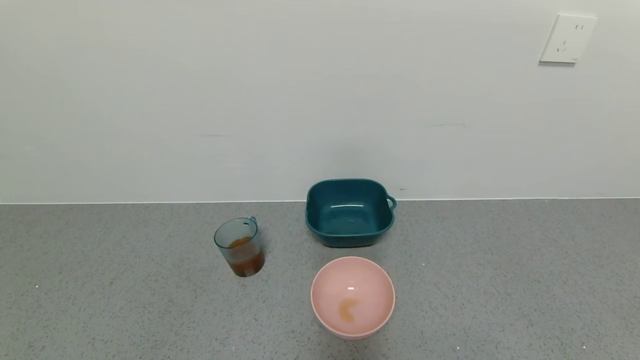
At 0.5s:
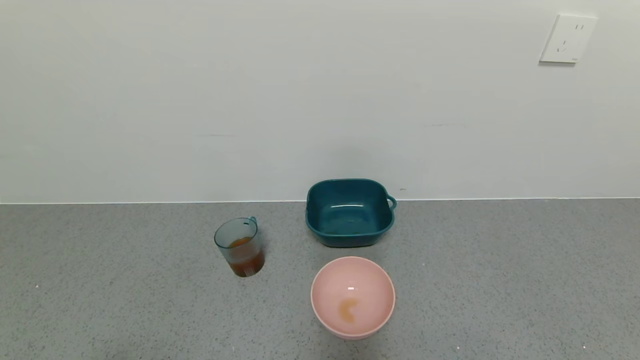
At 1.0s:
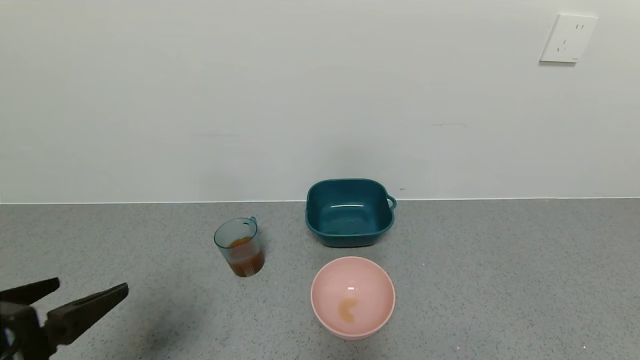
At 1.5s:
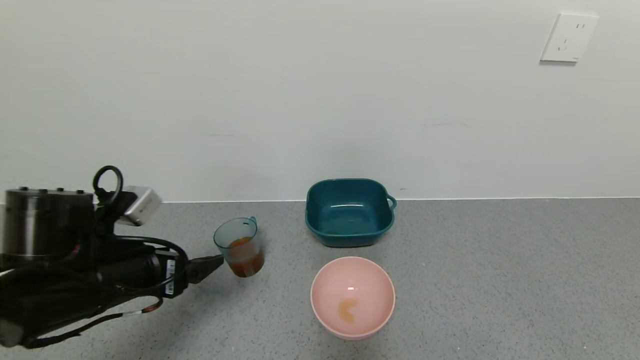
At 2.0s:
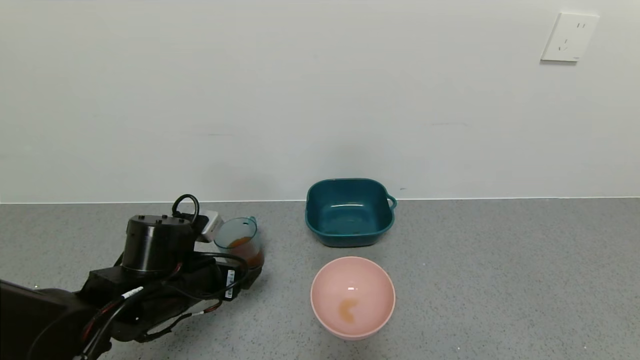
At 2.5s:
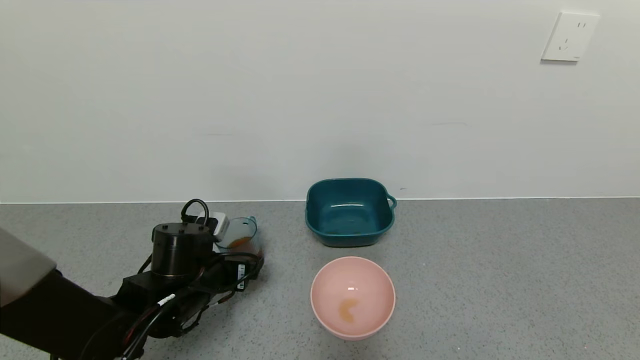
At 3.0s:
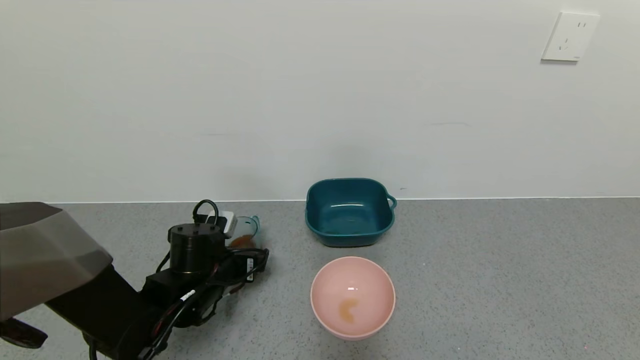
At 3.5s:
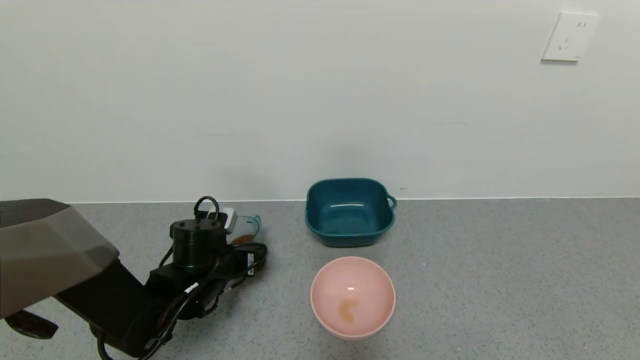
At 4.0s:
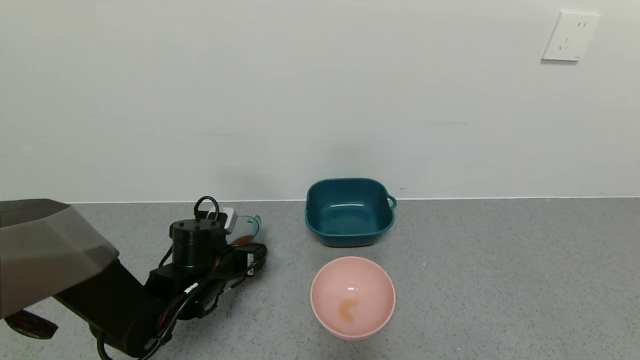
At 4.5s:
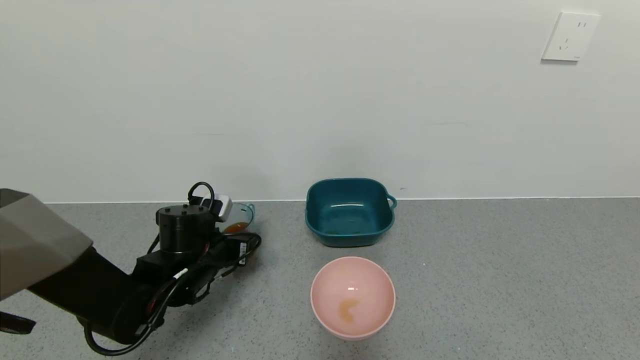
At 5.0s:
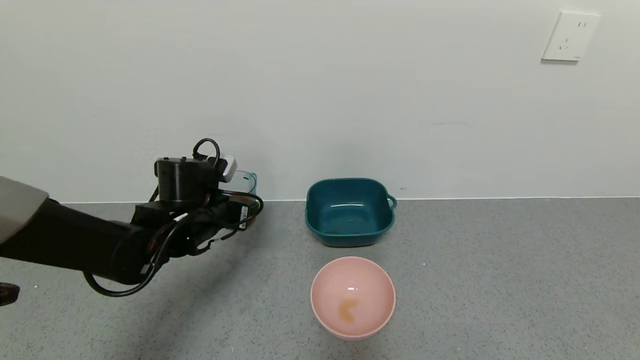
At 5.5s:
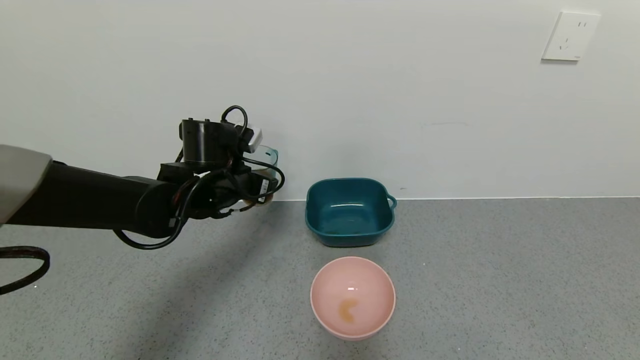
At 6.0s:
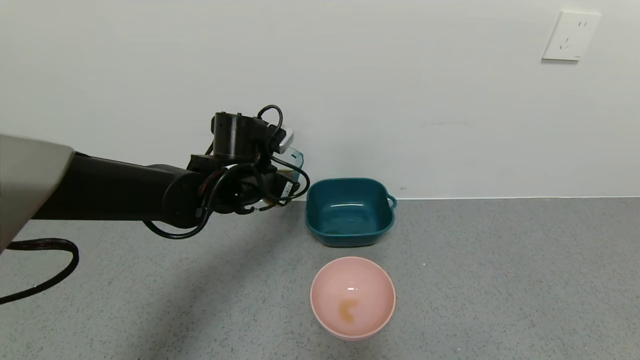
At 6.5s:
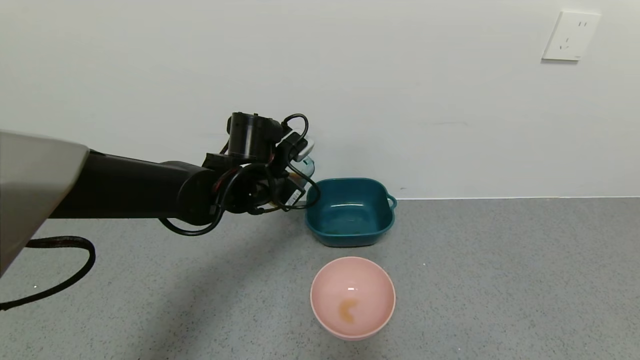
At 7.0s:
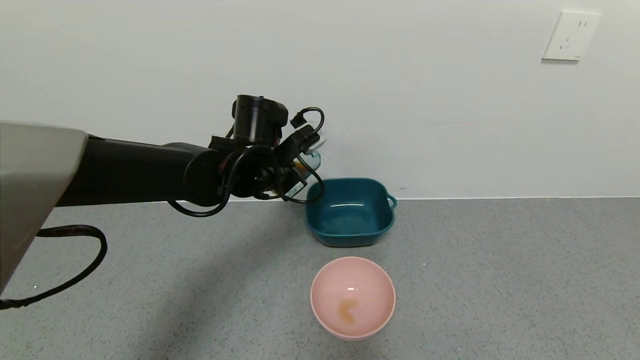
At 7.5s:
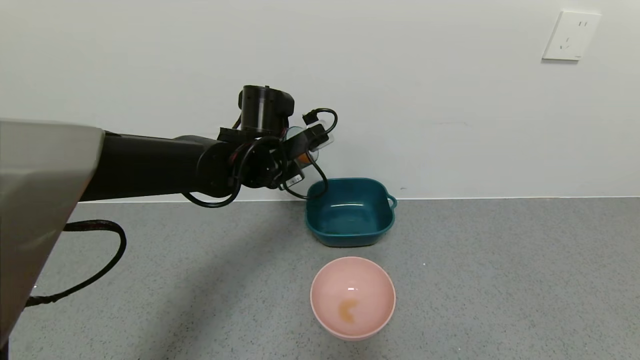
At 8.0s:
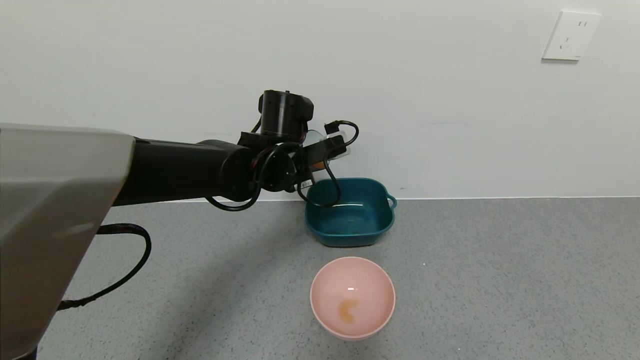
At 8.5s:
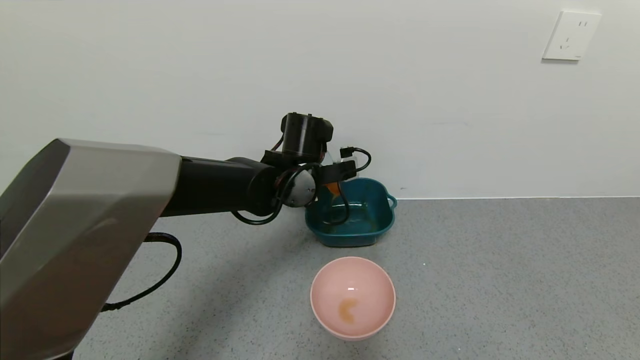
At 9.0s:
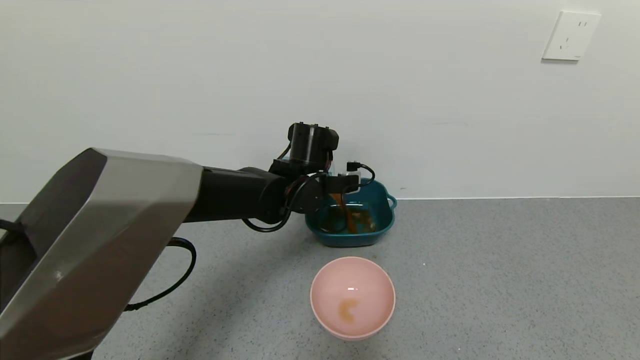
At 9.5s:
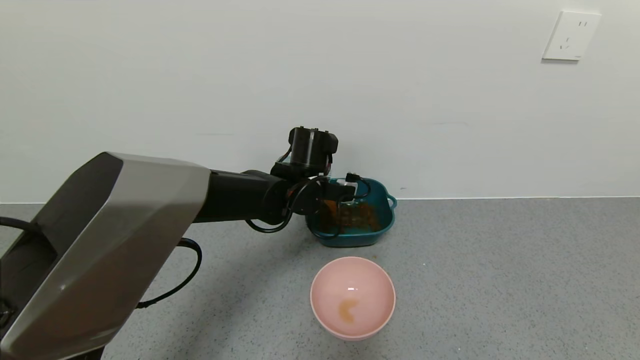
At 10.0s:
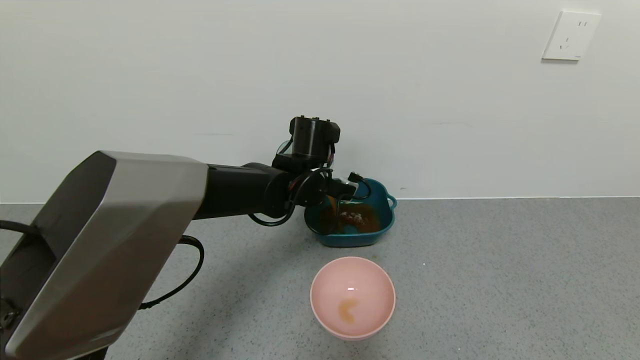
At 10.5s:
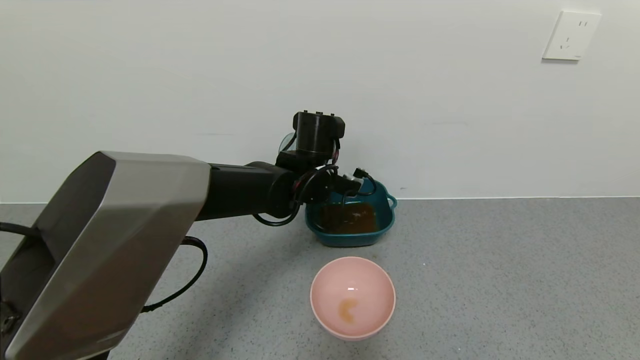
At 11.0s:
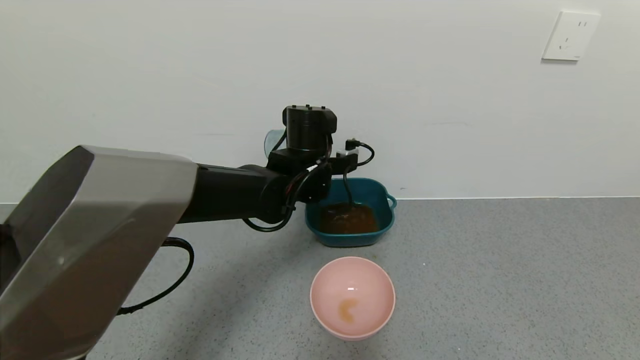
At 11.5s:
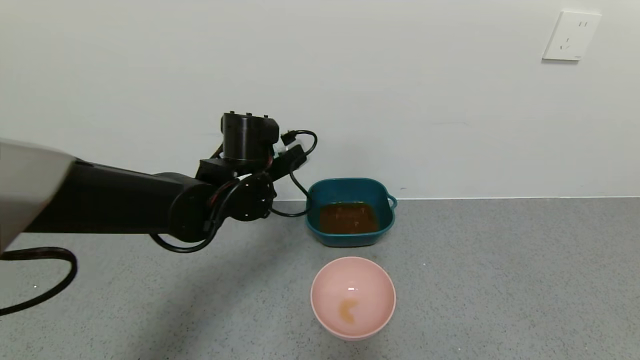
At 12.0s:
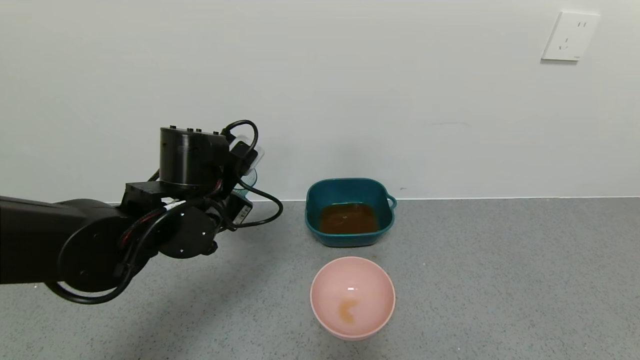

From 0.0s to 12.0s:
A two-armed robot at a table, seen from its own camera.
Task of the whole recording: use a gripper to pick up the cup and pour the liquid into a bowl or tray.
Step, from 0.0s to 4.5s: Grasp the glass of black tea with the left gripper.
Step, from 5.0s to 11.0s: Pour the black tea into the green bowl with the left gripper.
From 0.0s to 2.0s: The left gripper shifts approximately 30 cm forward.
From 2.0s to 4.0s: The left gripper is displaced forward by roughly 5 cm, and closes.
From 4.0s to 6.0s: The left gripper travels upward, to the right and forward by some 15 cm.
From 6.0s to 8.0s: The left gripper shifts approximately 5 cm to the right.
From 8.0s to 10.0s: The left gripper changes place by about 5 cm.
From 10.0s to 12.0s: The left gripper heads backward and to the left, covering about 15 cm.

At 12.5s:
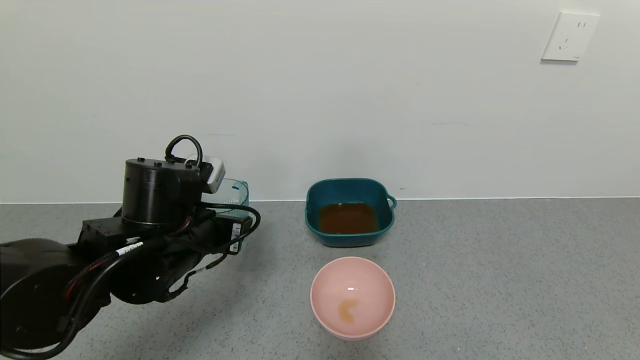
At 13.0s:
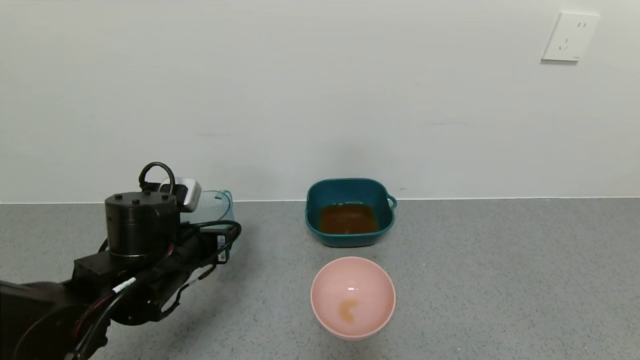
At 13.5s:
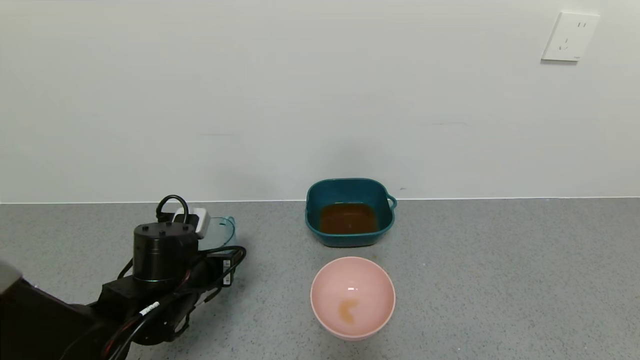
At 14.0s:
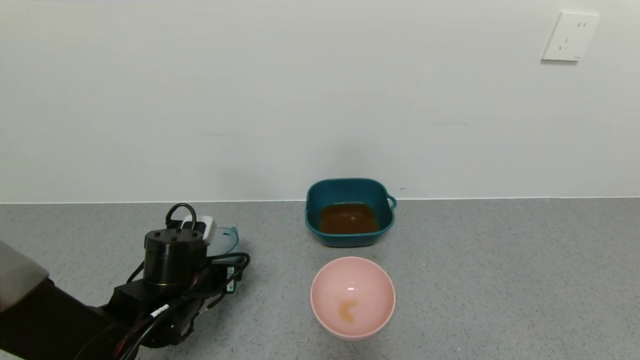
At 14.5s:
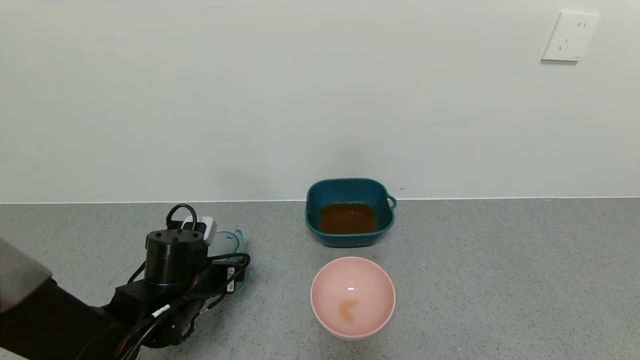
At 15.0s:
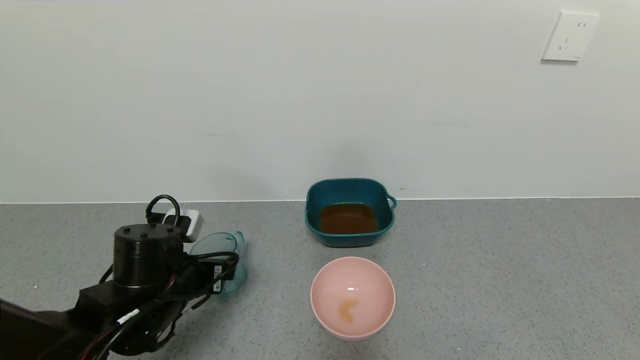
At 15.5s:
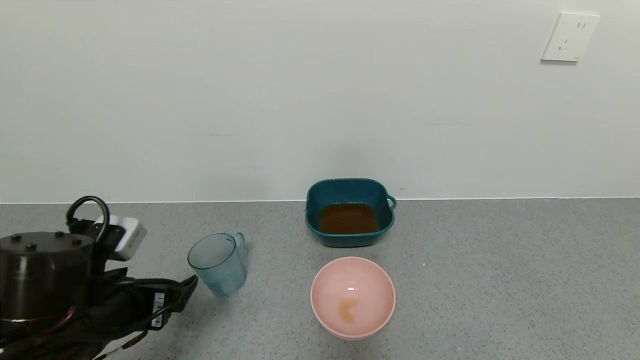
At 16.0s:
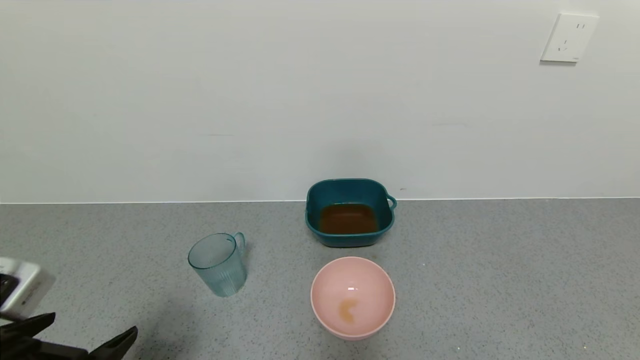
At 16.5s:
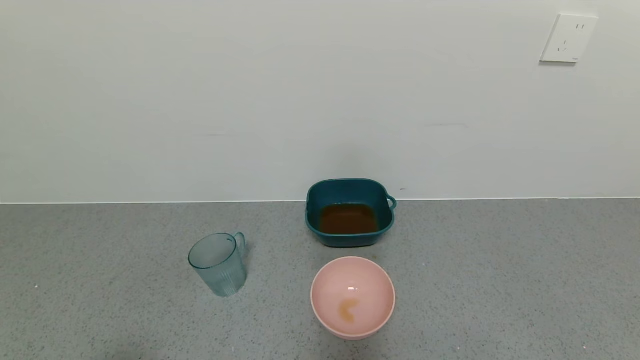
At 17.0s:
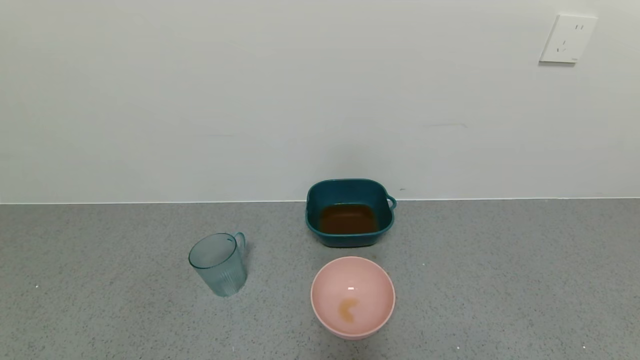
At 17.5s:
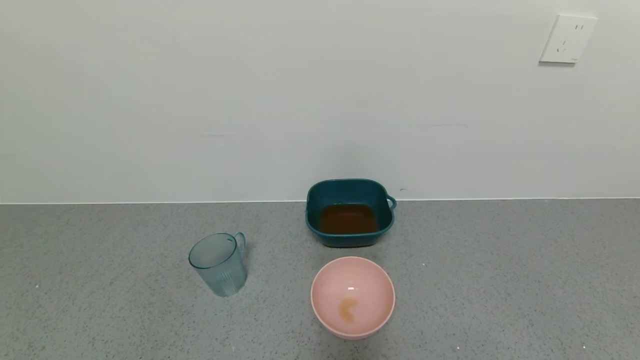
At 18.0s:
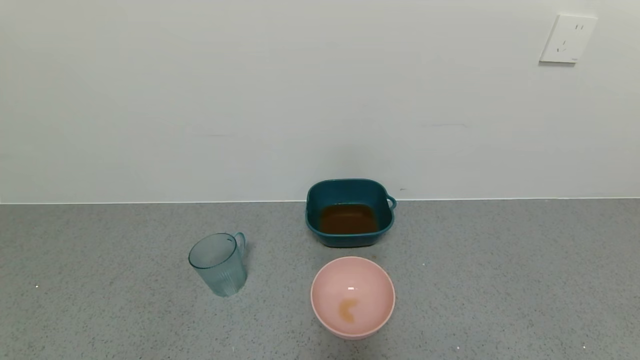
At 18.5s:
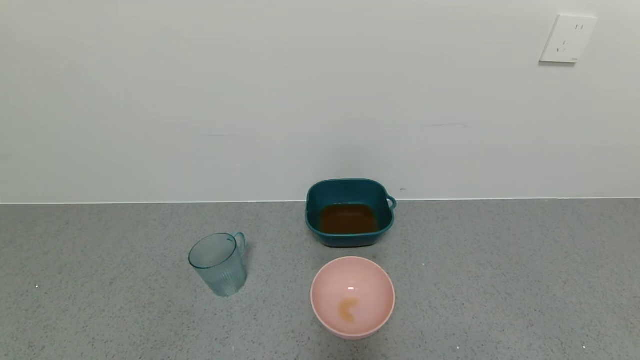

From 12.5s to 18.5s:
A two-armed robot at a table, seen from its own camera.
Task of the whole recording: use a gripper to pick up the cup and pour the liquid into a bowl or tray.
Step, from 12.5s to 15.5s: Place the glass cup with the left gripper.
From 12.5s to 14.5s: The left gripper is displaced downward by some 10 cm, and opens its fingers.
From 14.5s to 16.5s: The left gripper goes roughly 25 cm backward.

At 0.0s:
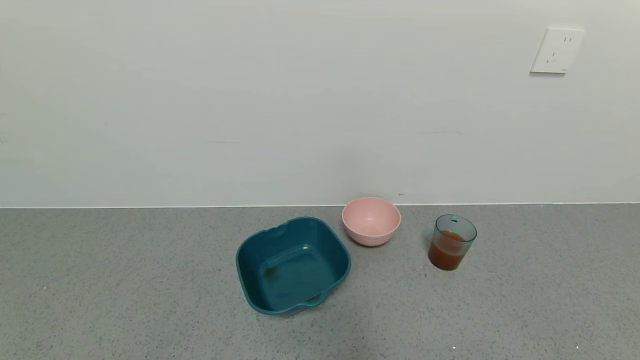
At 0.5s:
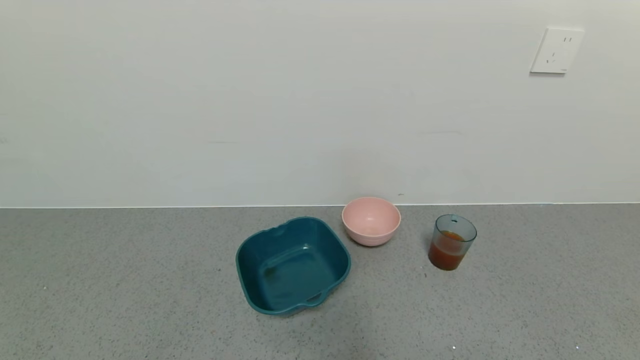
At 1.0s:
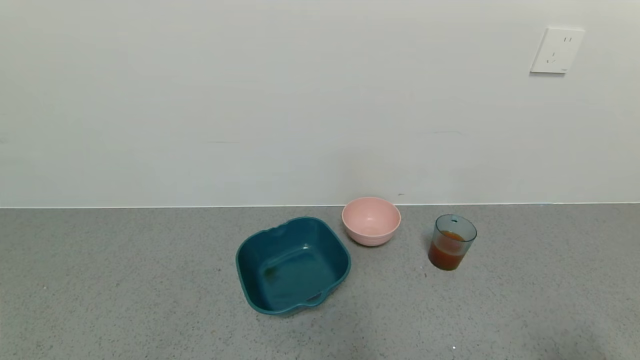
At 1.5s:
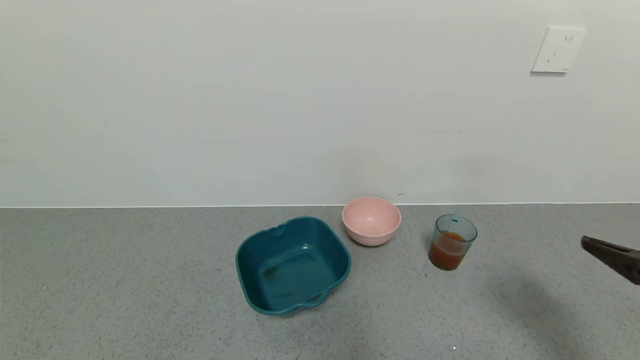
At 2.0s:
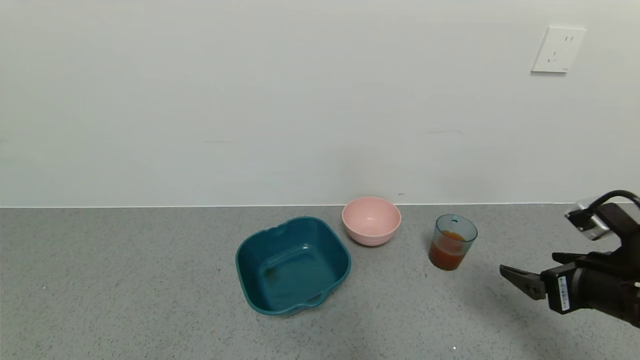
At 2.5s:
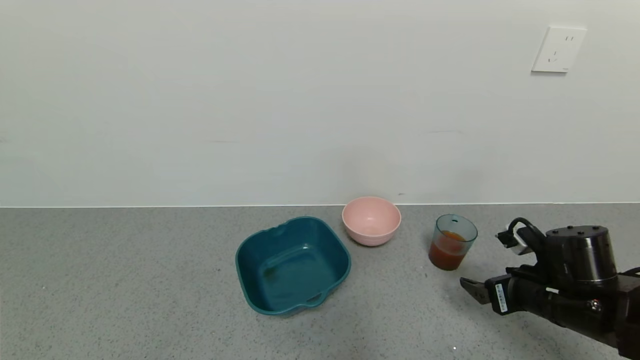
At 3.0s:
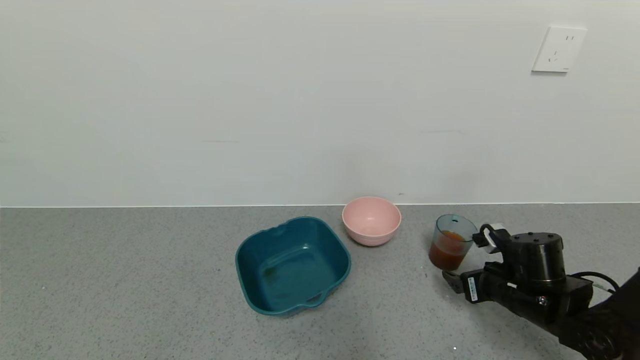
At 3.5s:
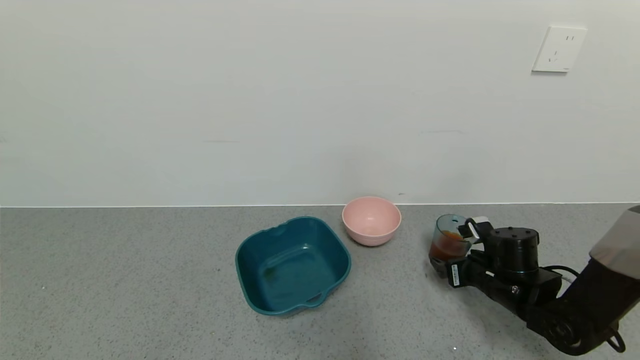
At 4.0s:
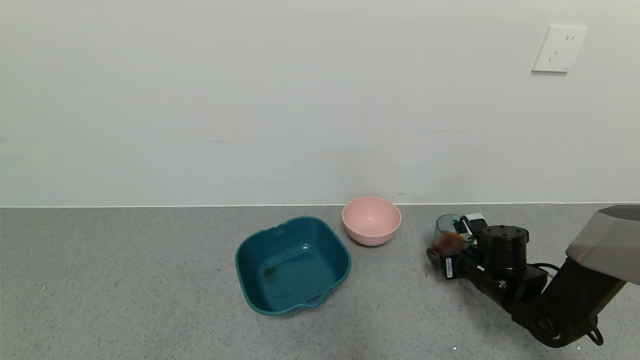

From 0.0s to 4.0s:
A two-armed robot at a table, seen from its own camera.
Task of the whole recording: use a gripper to pick up the cup and pour the liquid into a bowl or tray.
From 0.0s to 2.0s: The right gripper is displaced forward and upward by roughly 25 cm.
From 2.0s to 4.0s: The right gripper shifts some 20 cm forward and downward.
